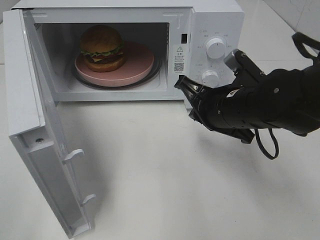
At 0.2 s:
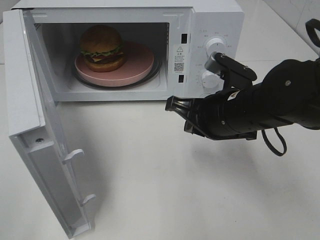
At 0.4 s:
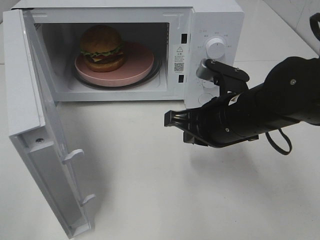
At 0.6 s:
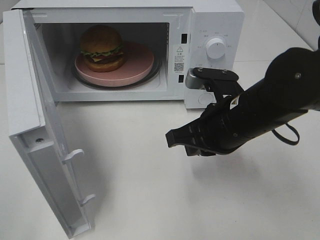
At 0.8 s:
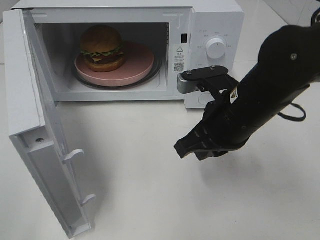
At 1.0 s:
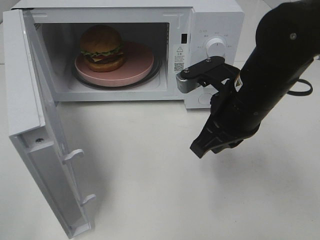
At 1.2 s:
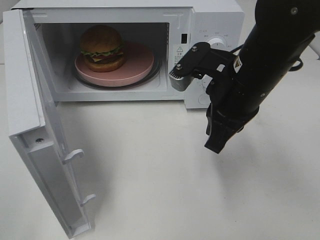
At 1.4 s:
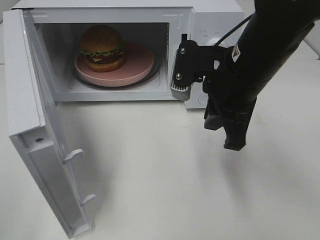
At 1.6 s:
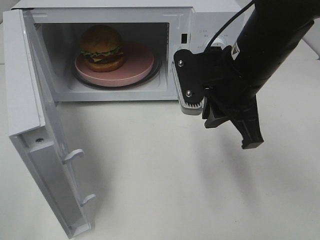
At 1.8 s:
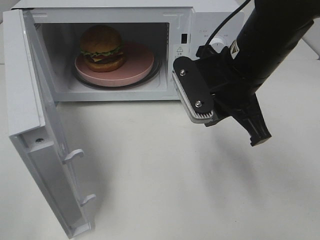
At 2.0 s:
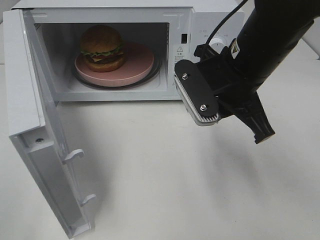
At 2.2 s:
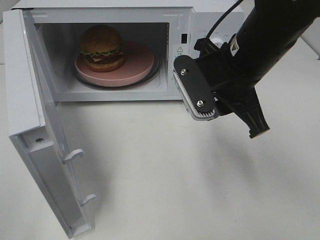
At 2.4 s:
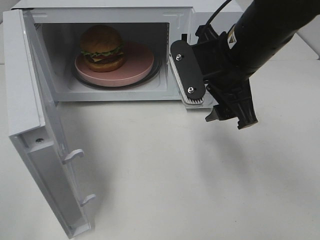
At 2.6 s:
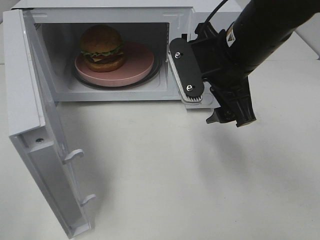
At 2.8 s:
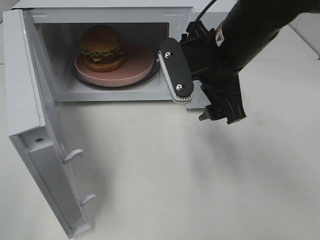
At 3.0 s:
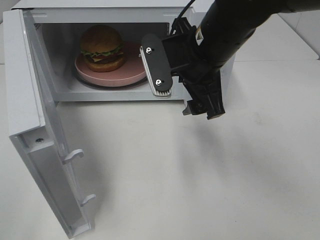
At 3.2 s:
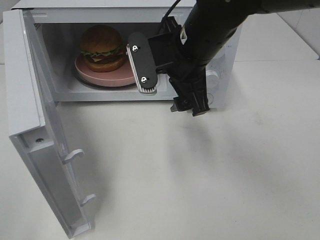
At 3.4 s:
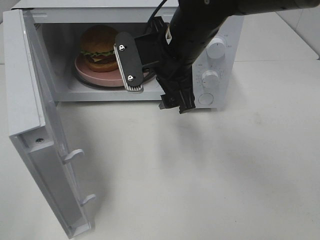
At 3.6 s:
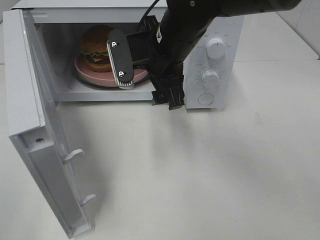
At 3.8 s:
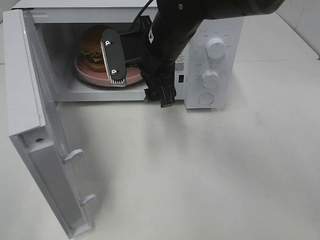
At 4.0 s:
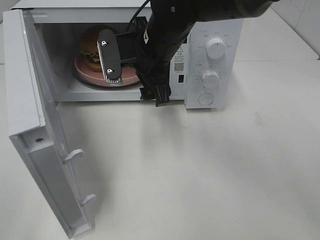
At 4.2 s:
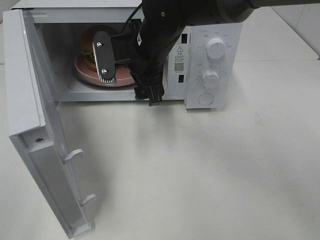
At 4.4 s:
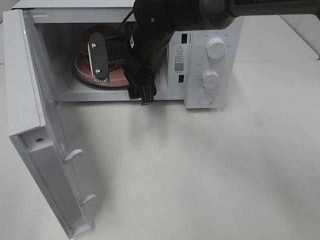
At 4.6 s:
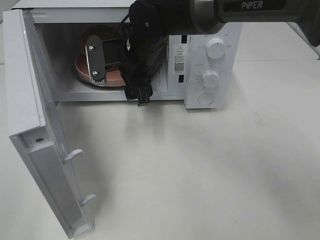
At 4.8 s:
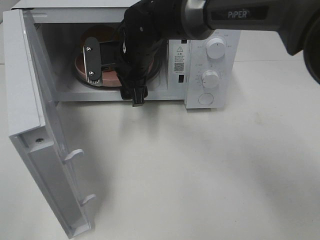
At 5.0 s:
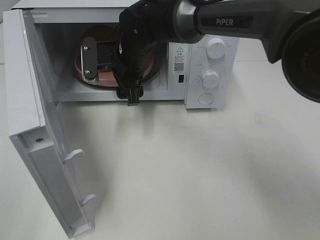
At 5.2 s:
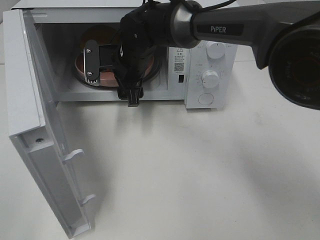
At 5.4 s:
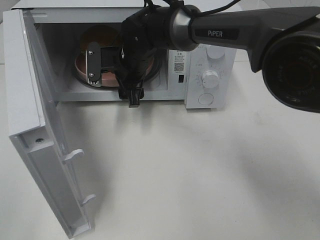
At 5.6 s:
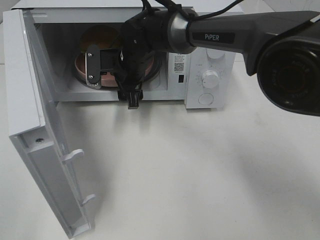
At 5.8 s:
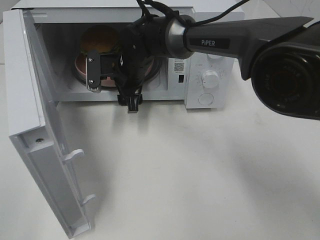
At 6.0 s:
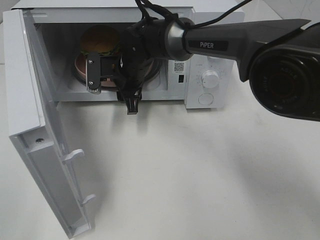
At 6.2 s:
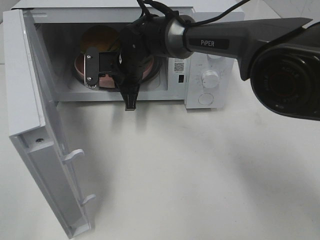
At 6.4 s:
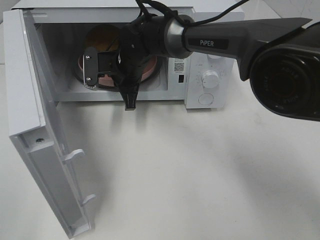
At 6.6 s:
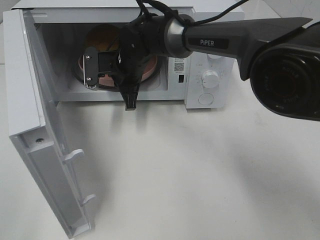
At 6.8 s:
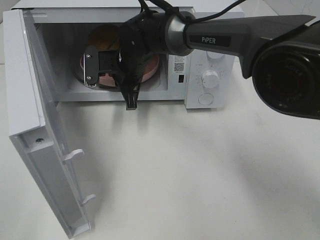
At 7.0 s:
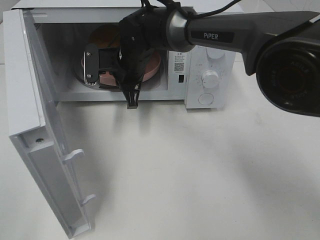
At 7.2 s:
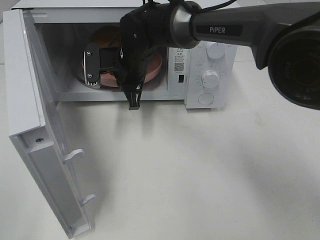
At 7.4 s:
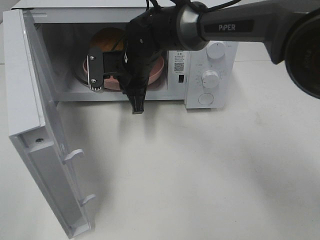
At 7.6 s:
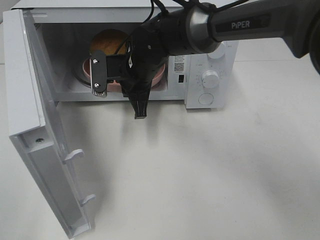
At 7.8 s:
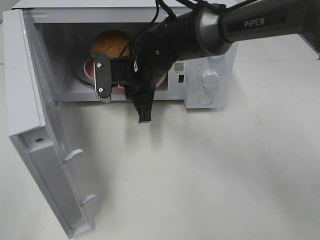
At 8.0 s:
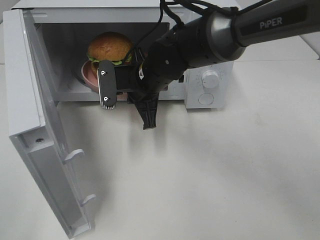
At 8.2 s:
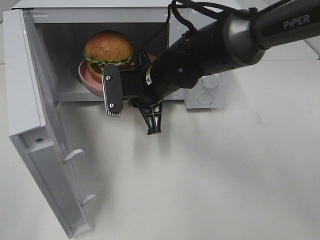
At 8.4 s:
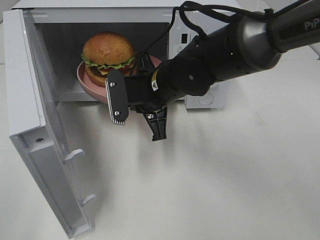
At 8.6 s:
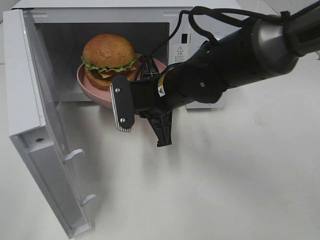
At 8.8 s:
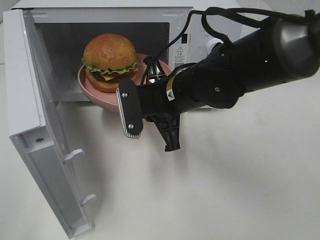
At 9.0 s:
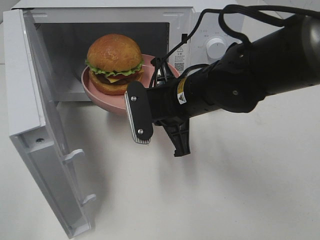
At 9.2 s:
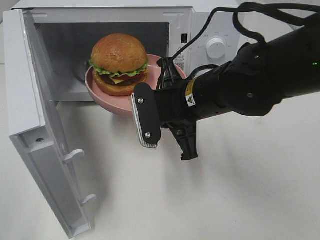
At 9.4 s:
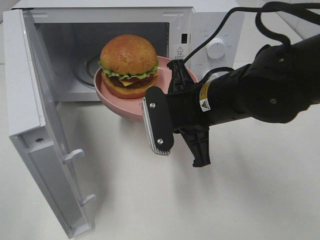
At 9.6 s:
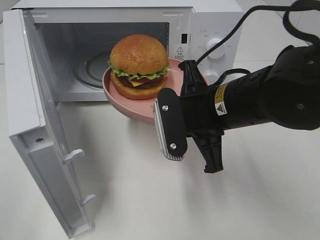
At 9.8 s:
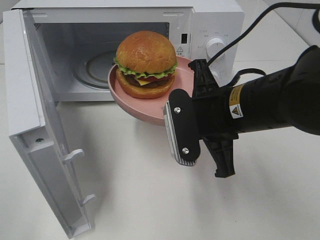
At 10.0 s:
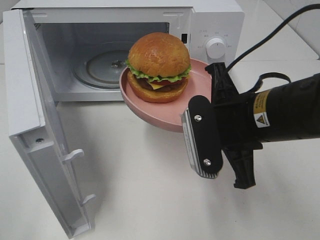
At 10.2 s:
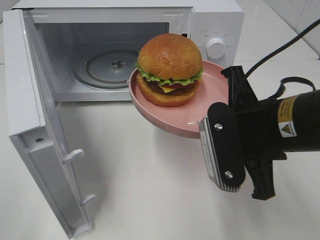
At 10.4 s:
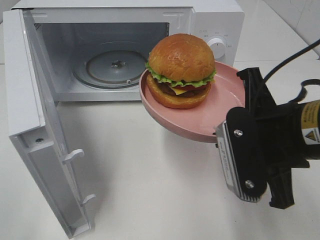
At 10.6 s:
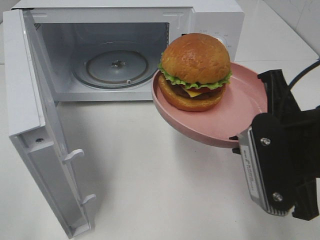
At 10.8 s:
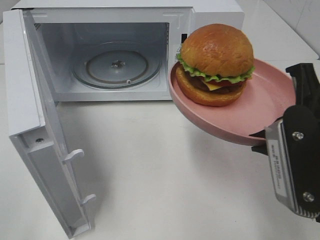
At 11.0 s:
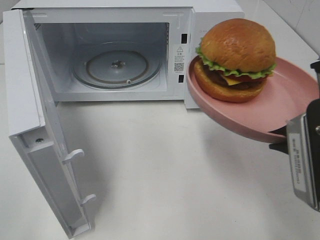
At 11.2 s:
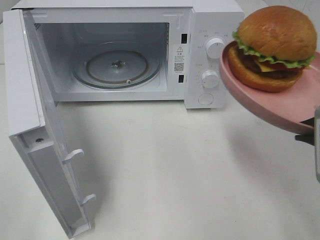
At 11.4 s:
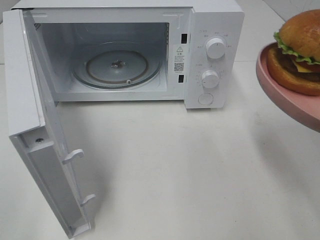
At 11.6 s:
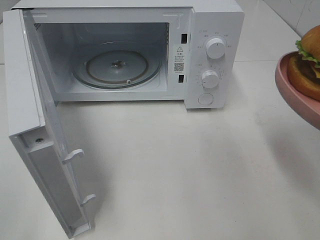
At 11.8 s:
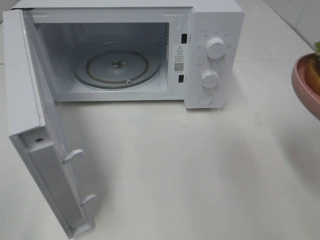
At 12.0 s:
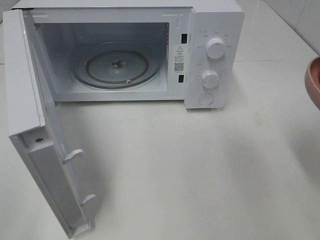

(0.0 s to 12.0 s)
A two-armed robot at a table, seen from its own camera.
Task of the whole recording: Heat the burger.
Step, 0.0 s - 6.4 s: Right hand: grab the plate with the hamburger.
0.0 s - 1.6 s: The right gripper shifts some 10 cm upward.
1.6 s - 3.0 s: The right gripper moves about 5 cm, and opens its fingers.
3.0 s - 4.4 s: The right gripper is displaced to the left and forward by roughly 10 cm.
4.4 s - 6.0 s: The right gripper is displaced downward by some 5 cm, and closes up.
6.0 s - 7.6 s: The right gripper ends up about 5 cm from where it was, and closes.
7.6 s - 9.0 s: The right gripper travels backward and to the right by some 15 cm.
9.0 s - 10.4 s: The right gripper is displaced backward and to the right by approximately 15 cm.
10.4 s - 12.0 s: The right gripper goes roughly 10 cm to the right and backward.

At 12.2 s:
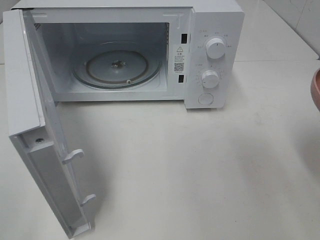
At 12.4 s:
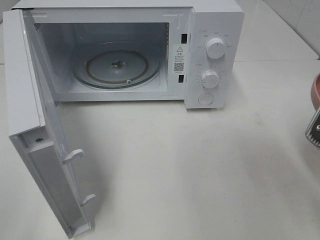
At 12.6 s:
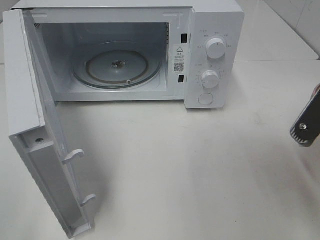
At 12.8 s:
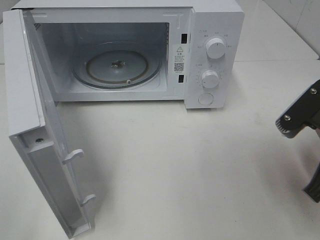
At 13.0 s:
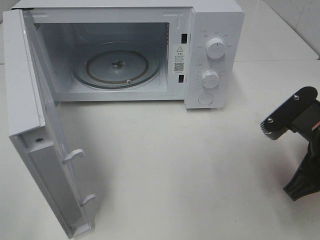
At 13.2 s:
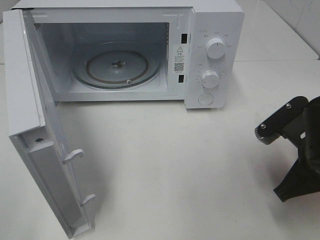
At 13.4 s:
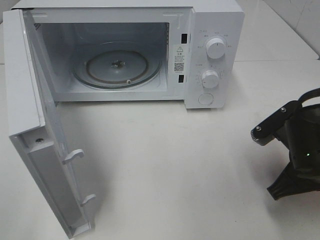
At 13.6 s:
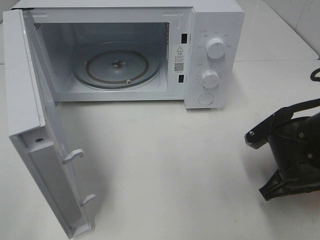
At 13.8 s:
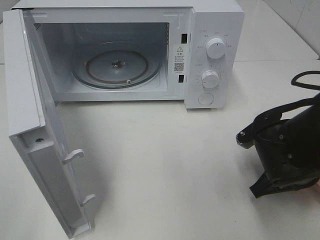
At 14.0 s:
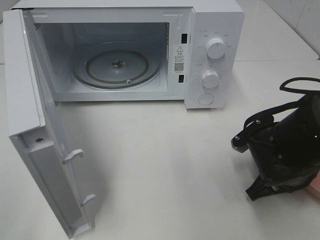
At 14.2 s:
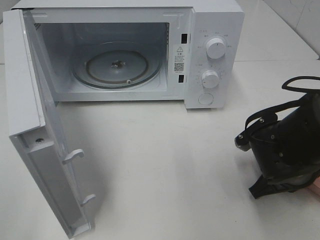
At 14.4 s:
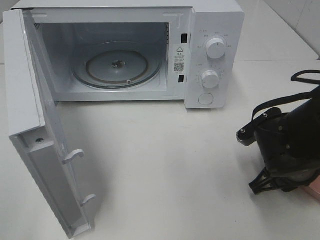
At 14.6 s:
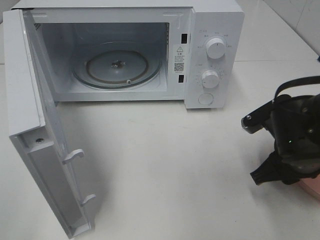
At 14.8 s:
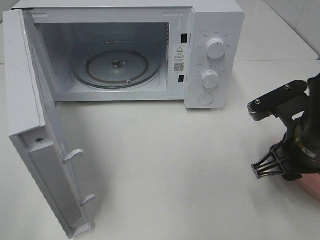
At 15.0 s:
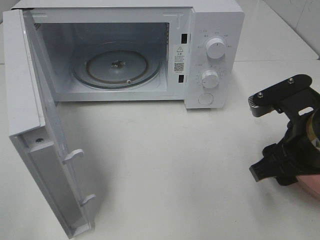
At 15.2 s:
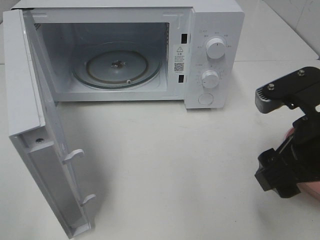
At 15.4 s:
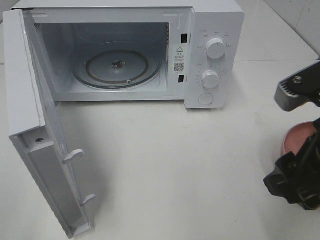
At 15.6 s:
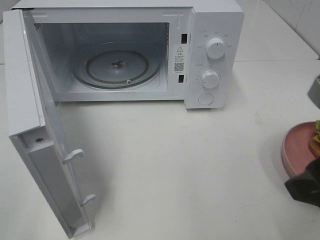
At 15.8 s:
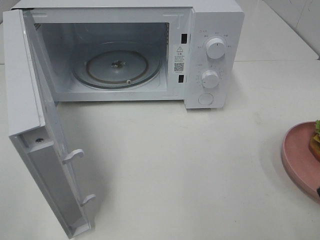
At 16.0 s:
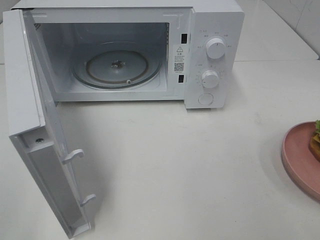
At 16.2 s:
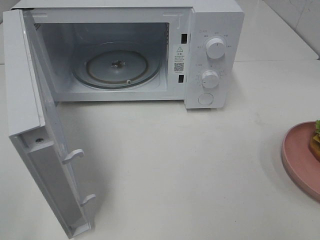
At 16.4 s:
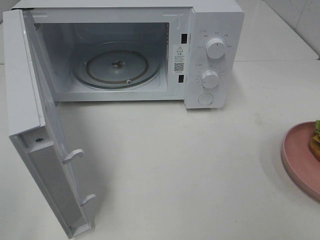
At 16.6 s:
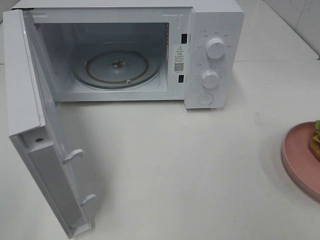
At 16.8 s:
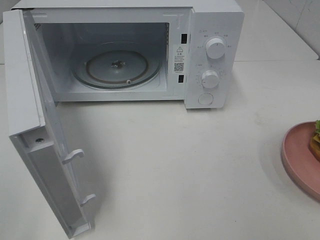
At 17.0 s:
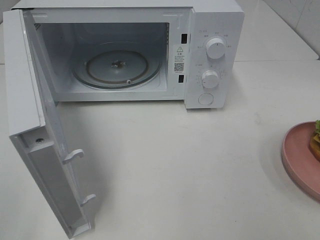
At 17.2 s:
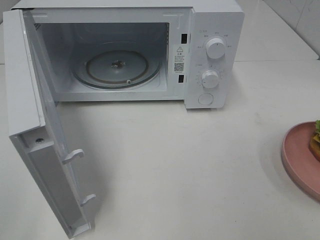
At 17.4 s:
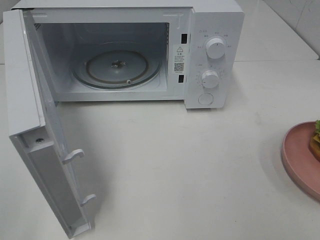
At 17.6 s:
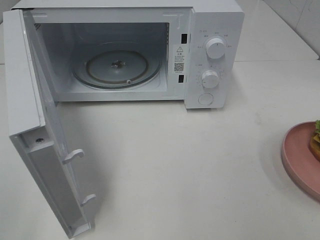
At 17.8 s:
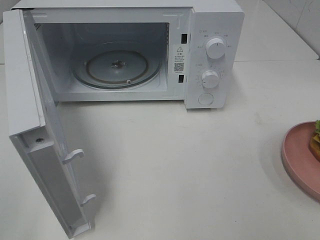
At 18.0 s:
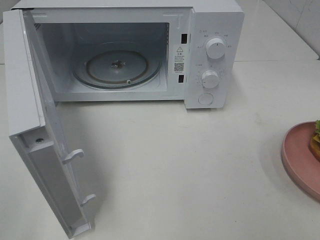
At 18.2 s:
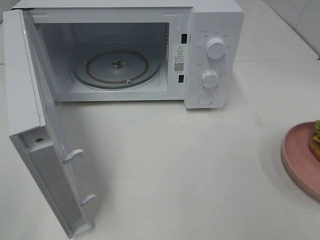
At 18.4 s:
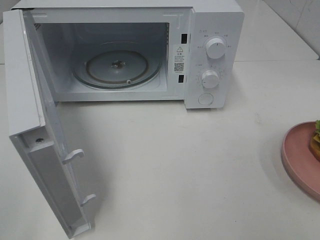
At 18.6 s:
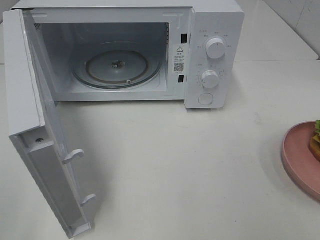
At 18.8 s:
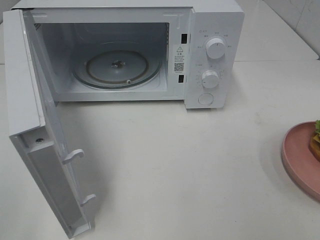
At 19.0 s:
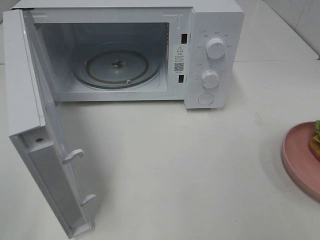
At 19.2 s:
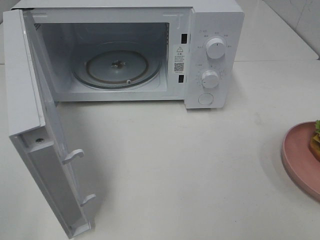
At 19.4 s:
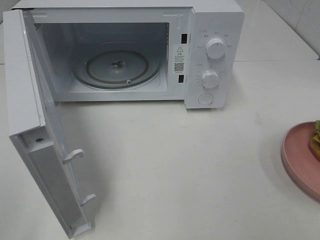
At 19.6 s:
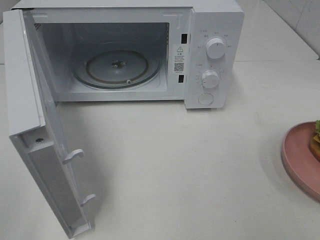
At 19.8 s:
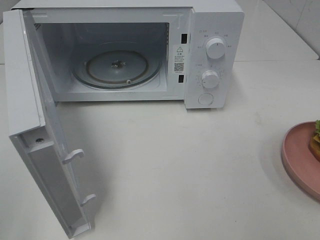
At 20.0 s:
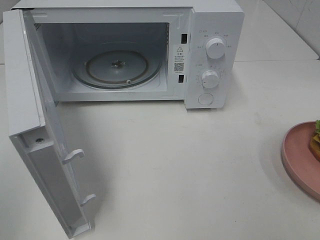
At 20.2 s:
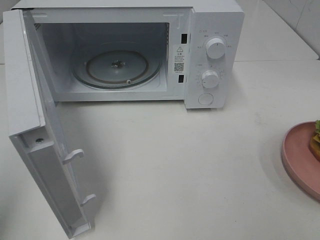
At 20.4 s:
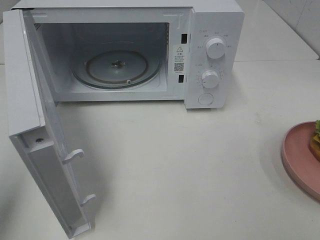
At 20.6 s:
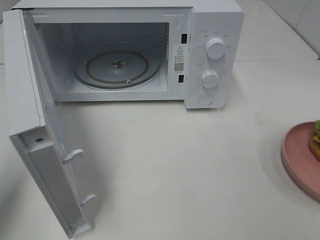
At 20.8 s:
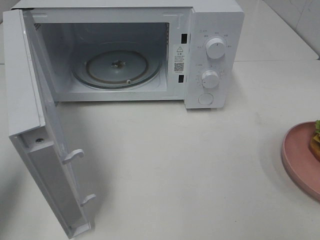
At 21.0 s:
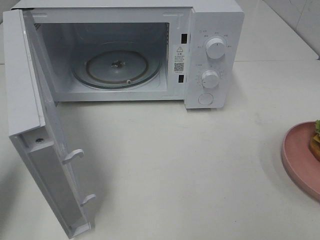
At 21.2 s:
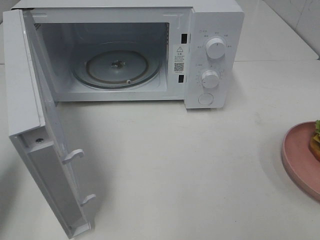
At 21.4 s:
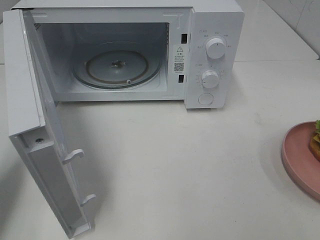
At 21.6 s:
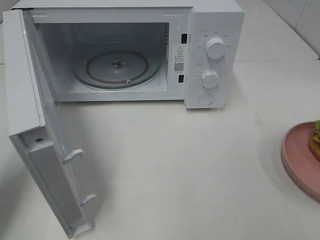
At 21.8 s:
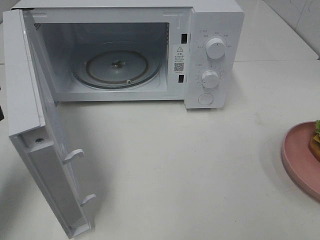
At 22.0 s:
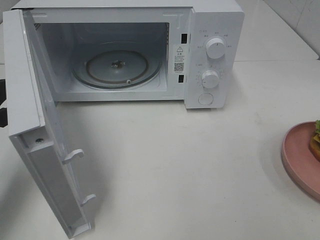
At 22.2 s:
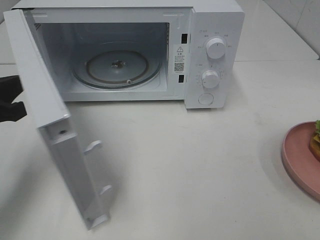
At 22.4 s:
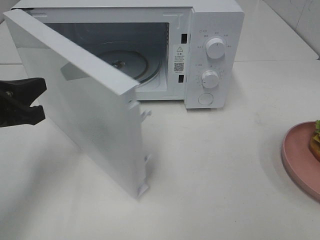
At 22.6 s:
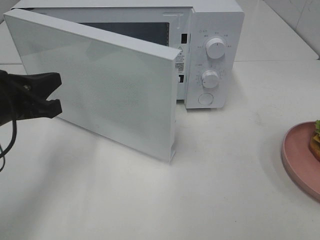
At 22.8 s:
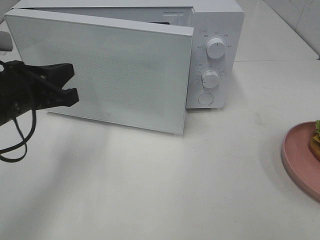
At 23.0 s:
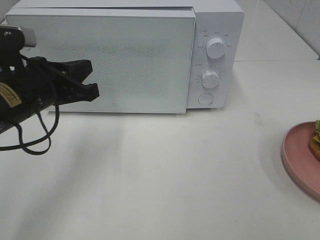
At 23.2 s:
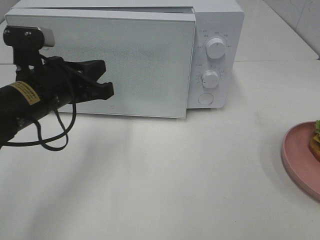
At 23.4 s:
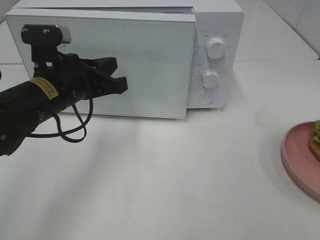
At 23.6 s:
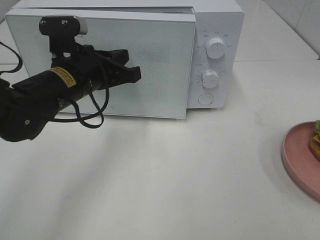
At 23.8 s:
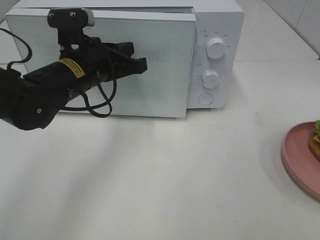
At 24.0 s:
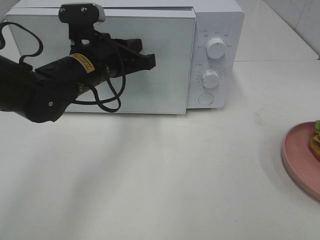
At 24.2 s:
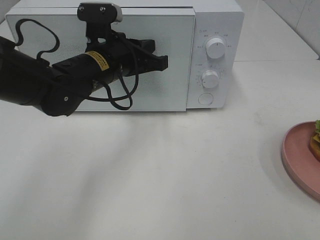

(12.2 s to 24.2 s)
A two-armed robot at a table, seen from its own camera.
Task of the whole recording: Heat the burger.
Step, 12.2 s - 14.6 s: Right hand: place the plate on the table.
12.2 s - 13.8 s: The right gripper goes about 15 cm downward and forward.
13.8 s - 15.2 s: The right gripper goes approximately 15 cm upward, and opens.
15.2 s - 16.6 s: The right gripper heads backward, to the right and upward, covering some 20 cm.
19.8 s - 21.2 s: The left gripper goes approximately 15 cm forward and downward, and closes.
21.2 s - 22.6 s: The left gripper goes some 10 cm to the right and forward.
22.6 s - 24.2 s: The left gripper goes roughly 20 cm to the right and forward.
